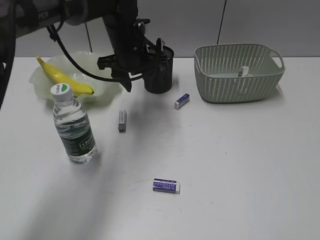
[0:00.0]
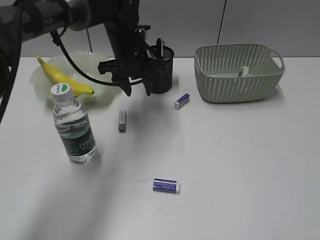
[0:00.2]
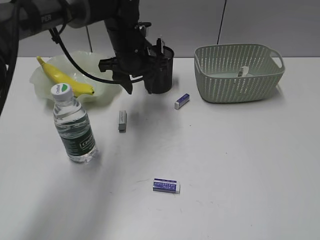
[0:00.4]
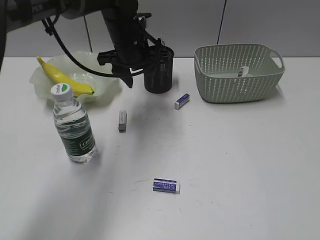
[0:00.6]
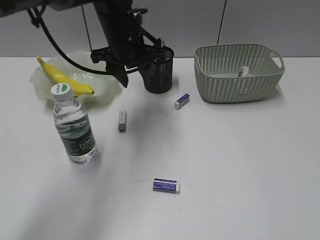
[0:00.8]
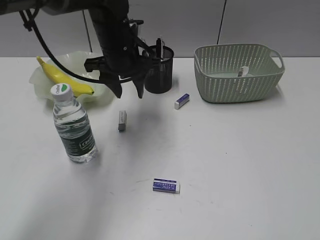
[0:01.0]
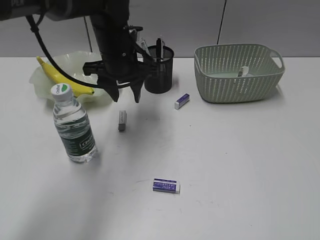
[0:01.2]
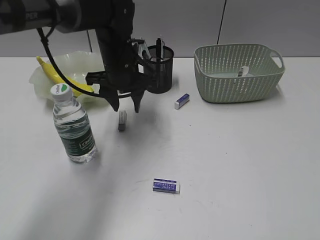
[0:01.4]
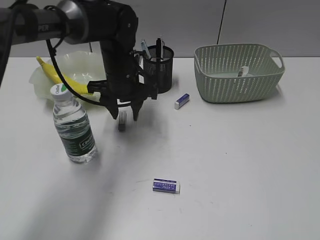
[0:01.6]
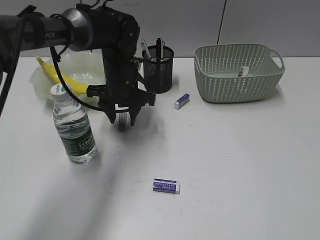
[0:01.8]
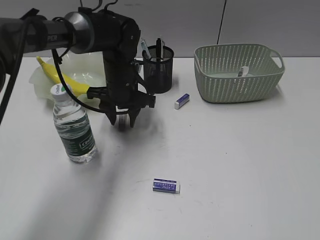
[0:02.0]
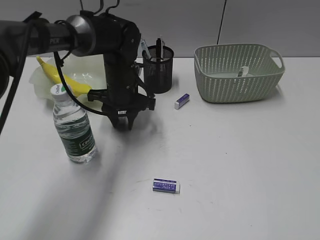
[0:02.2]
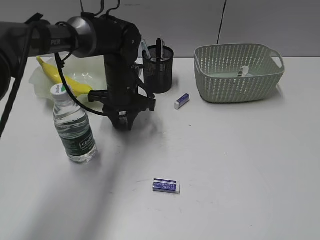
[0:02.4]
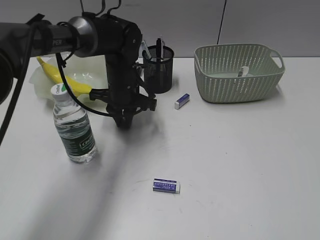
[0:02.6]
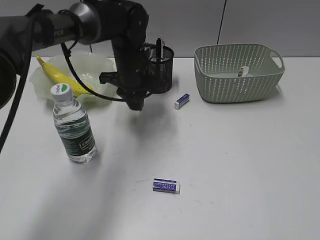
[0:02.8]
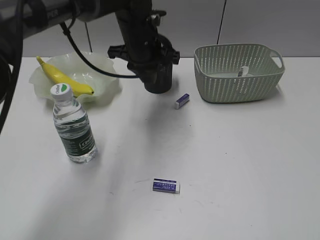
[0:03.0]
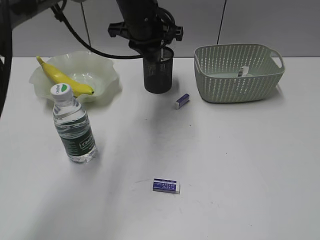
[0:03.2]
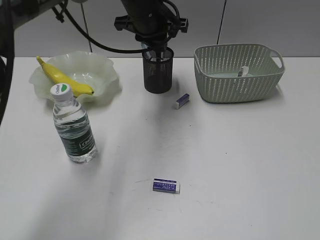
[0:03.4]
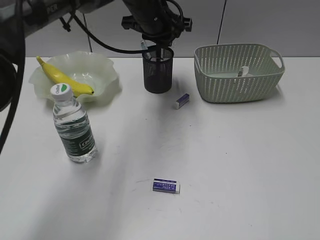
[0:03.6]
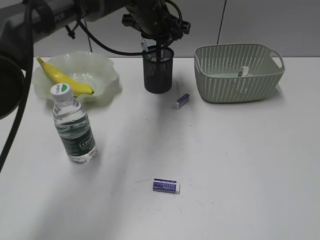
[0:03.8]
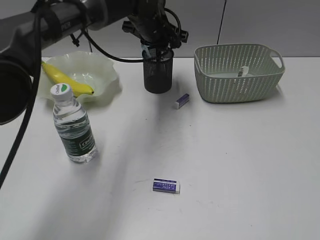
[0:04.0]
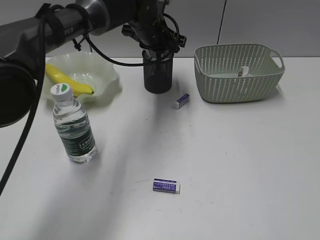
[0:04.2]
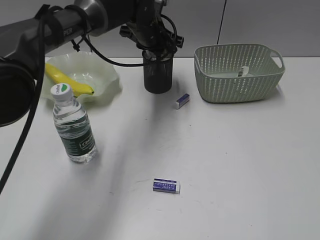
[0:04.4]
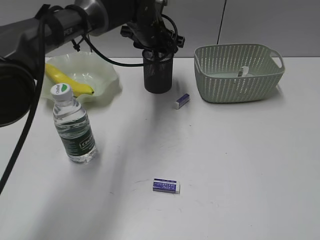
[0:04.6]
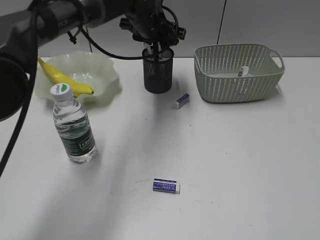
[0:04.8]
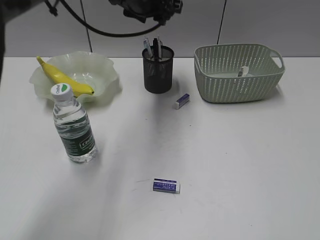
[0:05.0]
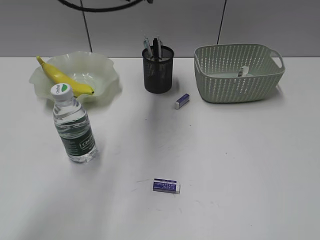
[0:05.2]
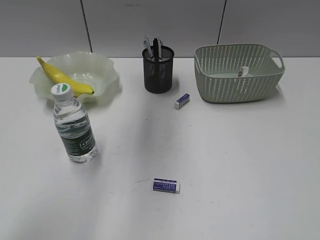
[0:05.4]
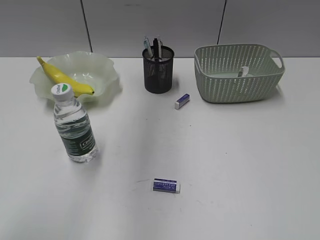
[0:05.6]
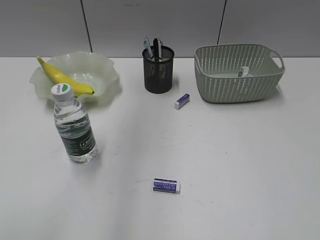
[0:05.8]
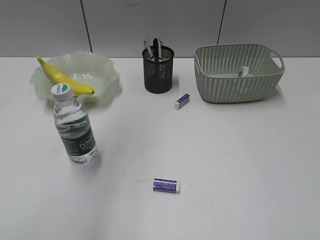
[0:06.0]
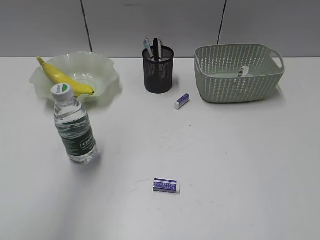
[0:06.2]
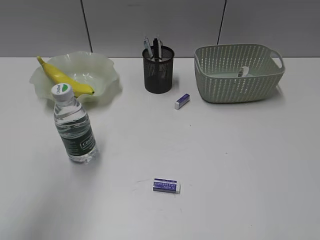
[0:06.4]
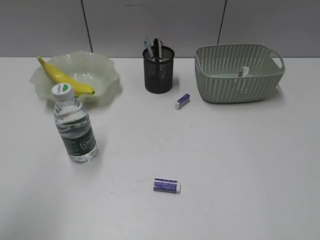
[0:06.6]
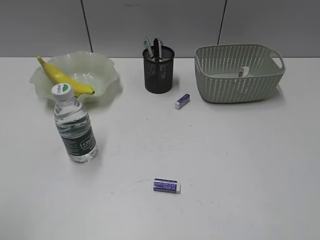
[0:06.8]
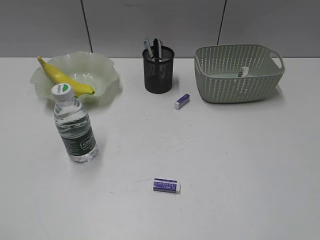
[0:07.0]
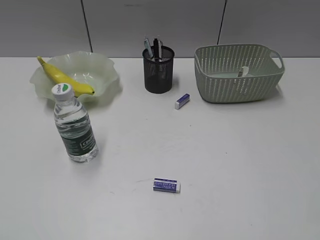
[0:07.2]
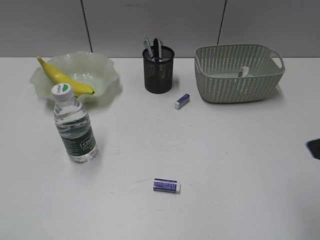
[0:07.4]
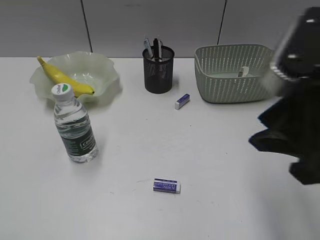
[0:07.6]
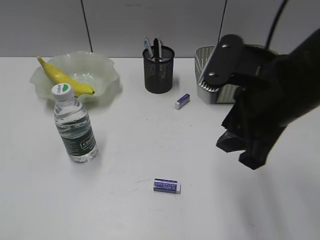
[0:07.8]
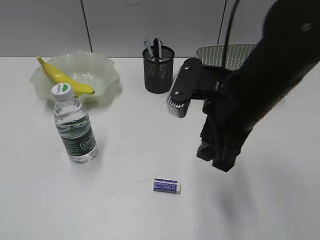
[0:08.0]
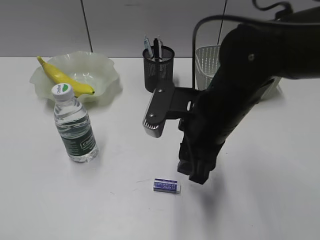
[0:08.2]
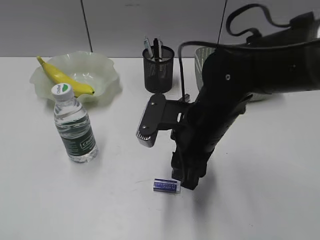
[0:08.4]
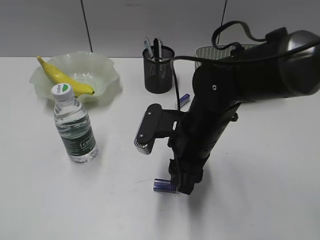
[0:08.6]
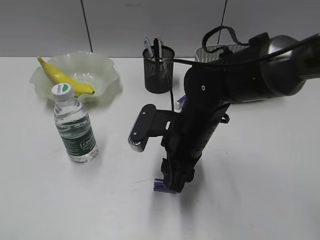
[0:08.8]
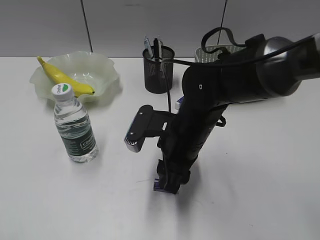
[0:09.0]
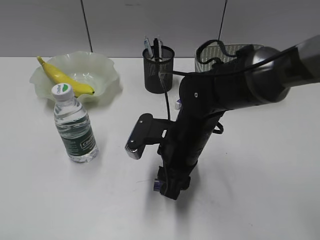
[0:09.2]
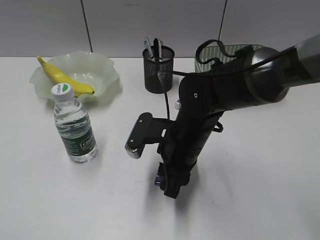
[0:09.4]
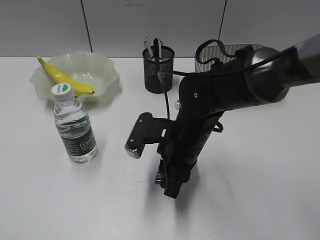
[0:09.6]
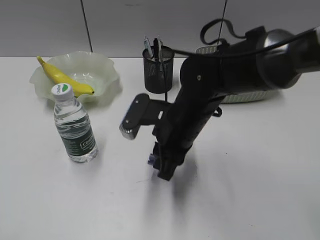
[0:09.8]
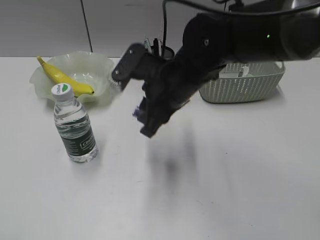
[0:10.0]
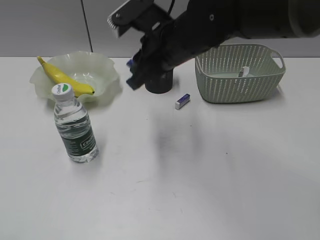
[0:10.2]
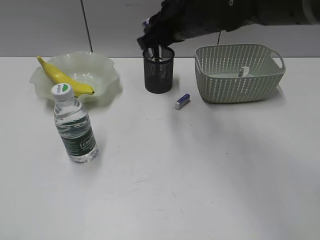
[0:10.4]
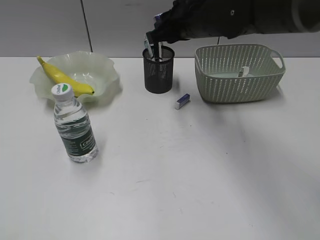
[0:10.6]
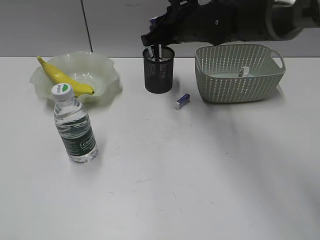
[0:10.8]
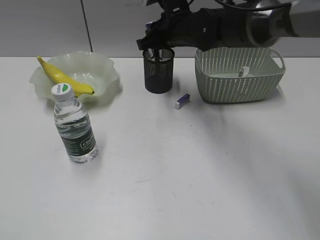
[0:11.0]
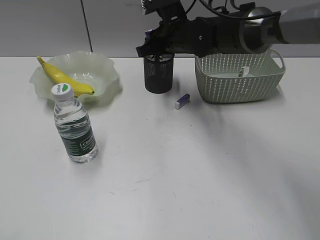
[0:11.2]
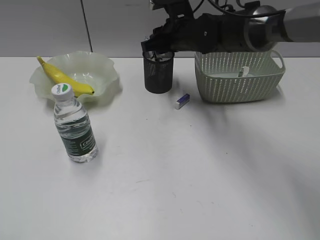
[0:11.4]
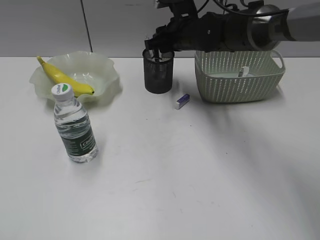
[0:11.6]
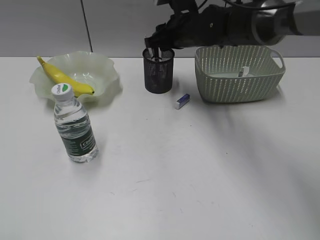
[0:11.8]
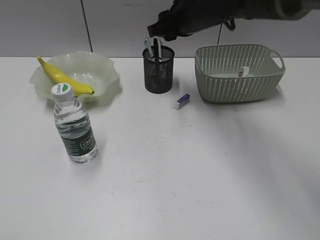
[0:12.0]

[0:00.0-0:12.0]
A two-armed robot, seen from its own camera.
Step, 0:00.0 to 0:02.4: Grasp the eraser with left gripper.
Step, 0:02.6 to 0:04.6: Place the eraser in pen holder with left gripper.
Step, 0:04.8 to 0:09.4: Grasp the eraser with right gripper.
Step, 0:09.6 to 0:11.4: Place the eraser in pen holder with right gripper.
0:00.0 to 0:01.6: The left gripper shifts by roughly 5 cm.
0:01.6 to 0:03.0: The left gripper heads upward, covering roughly 5 cm, and closes up.
0:03.0 to 0:04.4: The left gripper is displaced forward by approximately 5 cm.
0:04.4 to 0:06.0: The left gripper shifts about 40 cm upward, backward and to the left.
0:06.0 to 0:07.6: The left gripper shifts approximately 40 cm backward, downward and to the left. The right gripper heads forward and to the left, covering some 20 cm.
0:07.6 to 0:09.0: The right gripper heads downward, to the left and forward, covering roughly 25 cm.
0:09.0 to 0:10.4: The right gripper heads upward and forward, covering roughly 15 cm, and closes up.
0:10.4 to 0:12.0: The right gripper moves forward, some 5 cm, and opens its fingers.

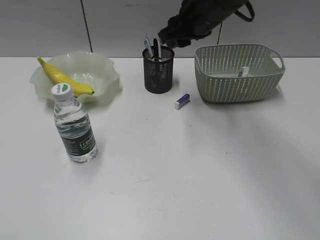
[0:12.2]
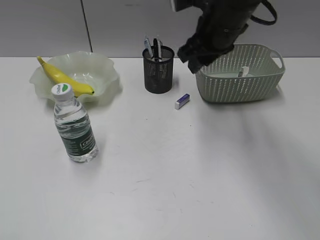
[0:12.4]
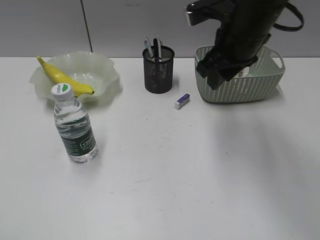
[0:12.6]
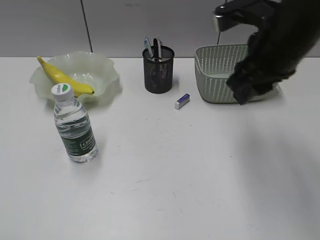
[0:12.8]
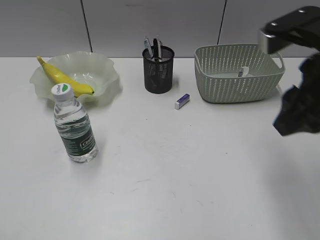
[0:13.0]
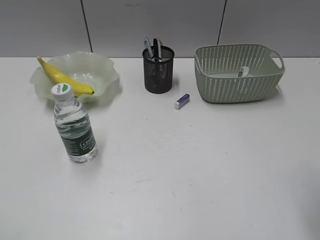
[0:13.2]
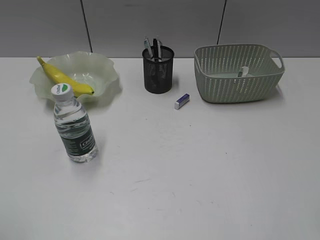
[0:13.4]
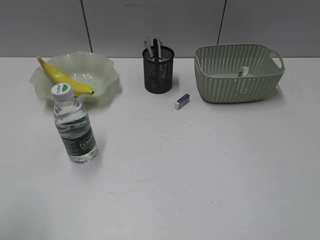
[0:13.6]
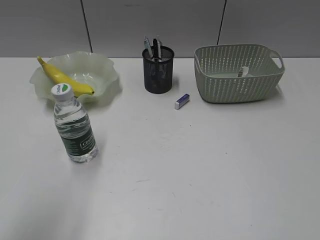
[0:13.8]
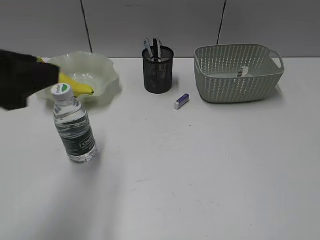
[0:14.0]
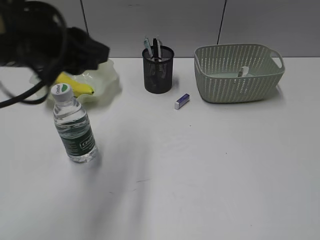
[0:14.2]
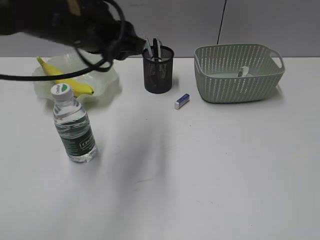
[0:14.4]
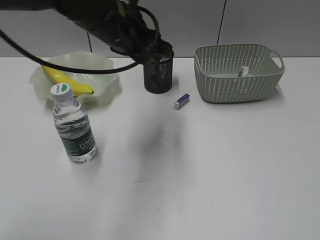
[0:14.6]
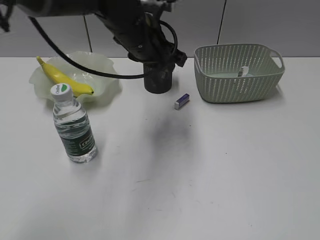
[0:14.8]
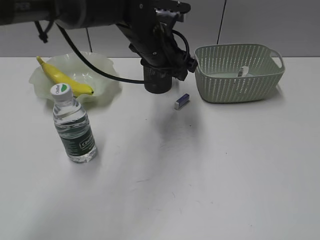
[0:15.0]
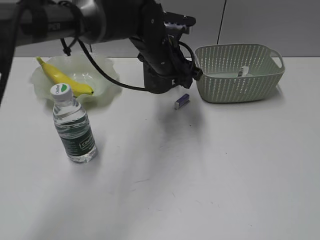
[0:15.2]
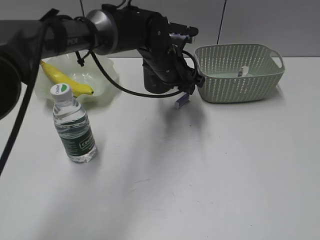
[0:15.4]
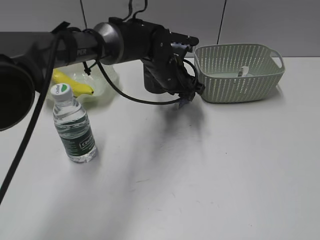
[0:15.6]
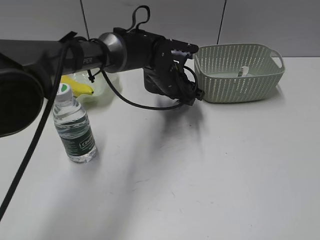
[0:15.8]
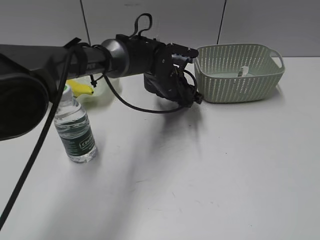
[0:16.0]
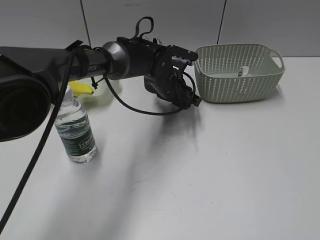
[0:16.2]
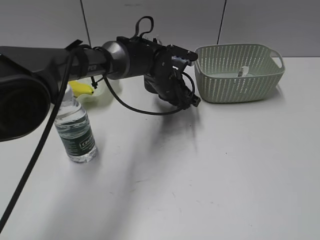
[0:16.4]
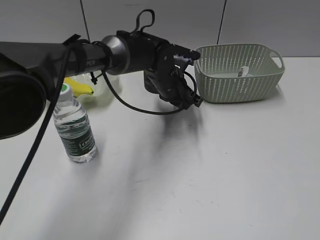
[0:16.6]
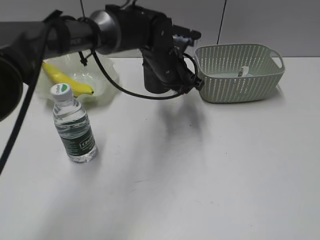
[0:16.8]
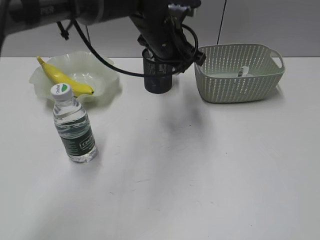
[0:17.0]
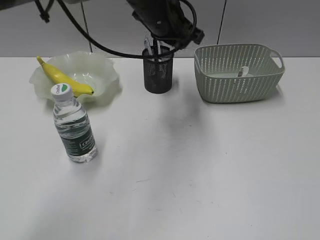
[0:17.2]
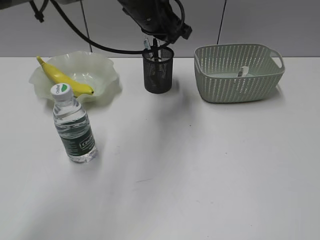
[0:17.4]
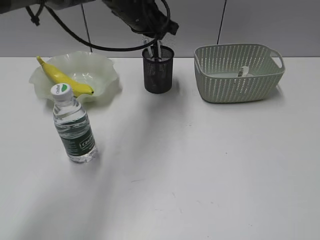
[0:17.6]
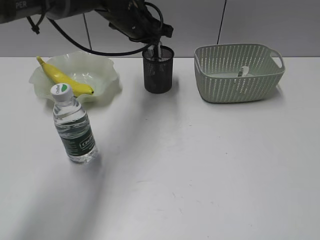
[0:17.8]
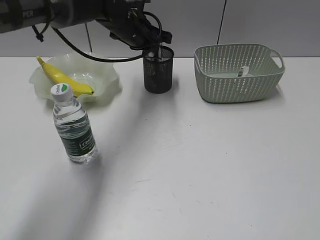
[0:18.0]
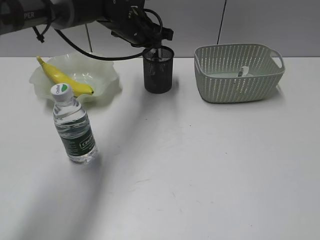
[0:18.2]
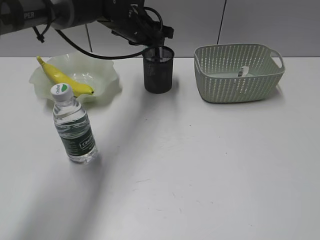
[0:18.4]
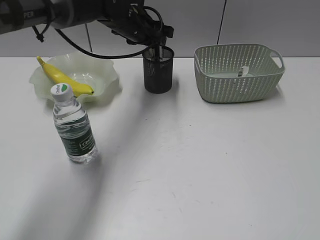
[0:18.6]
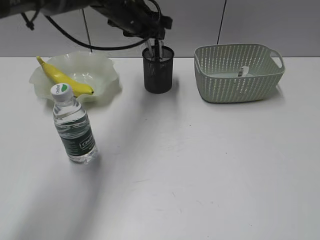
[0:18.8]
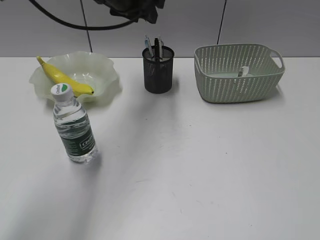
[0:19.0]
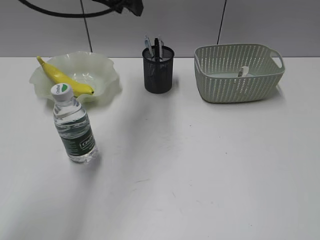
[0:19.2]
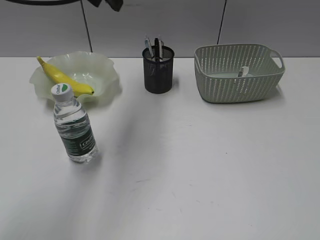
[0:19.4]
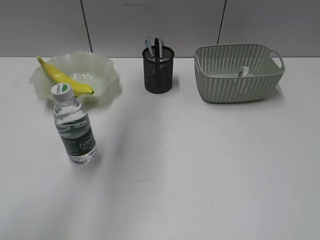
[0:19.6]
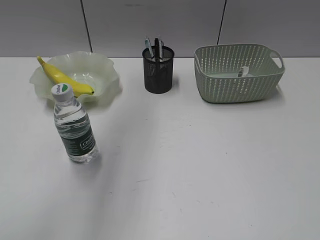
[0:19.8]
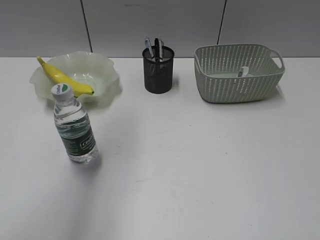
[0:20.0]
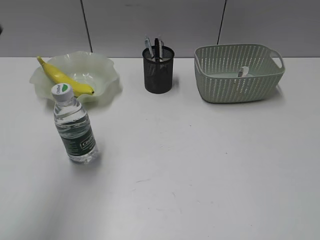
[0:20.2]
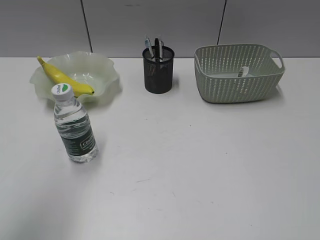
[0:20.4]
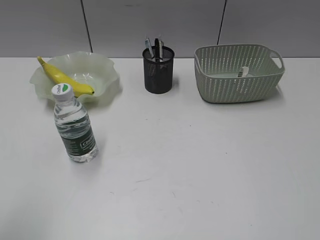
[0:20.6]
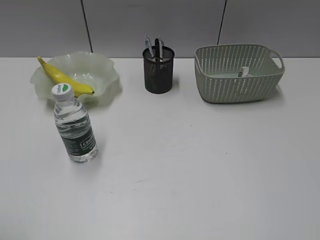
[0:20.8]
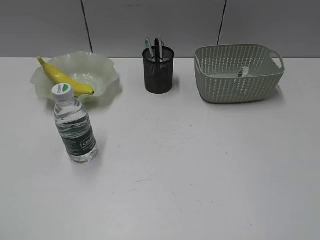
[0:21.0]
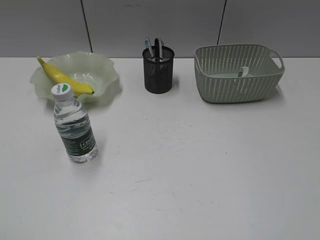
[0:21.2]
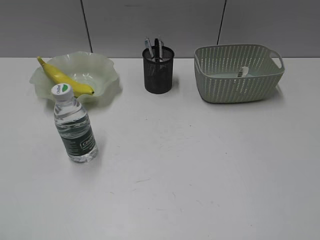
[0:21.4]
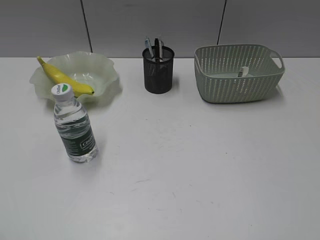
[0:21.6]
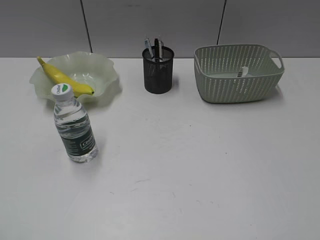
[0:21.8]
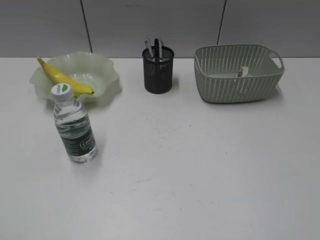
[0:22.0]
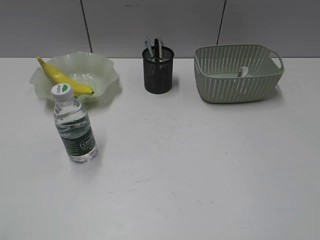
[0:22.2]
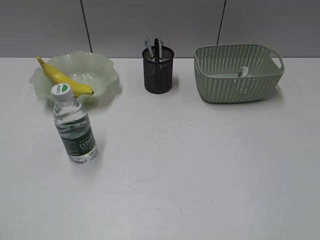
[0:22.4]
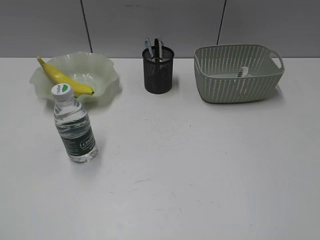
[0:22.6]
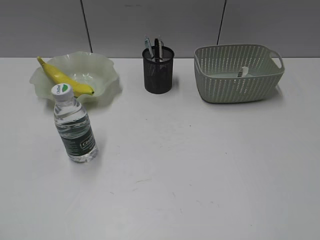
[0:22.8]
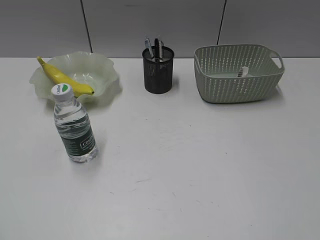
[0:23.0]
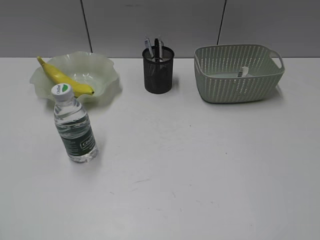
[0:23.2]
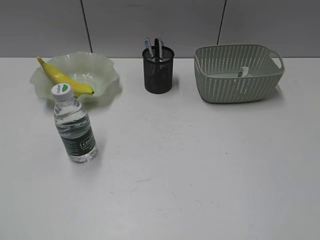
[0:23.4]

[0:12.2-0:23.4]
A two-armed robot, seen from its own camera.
Step, 0:12.2 to 0:16.4: Grasp the eraser with left gripper.
Step, 0:16.6 to 0:18.6: Place the eraser in pen holder with left gripper.
0:12.2 to 0:13.8: The right gripper is displaced backward and to the right by about 50 cm. Meanwhile the left gripper travels forward and to the right by about 10 cm.
0:13.8 to 0:15.4: The left gripper shifts some 50 cm forward, to the right and downward.
0:15.4 to 0:17.0: The left gripper shifts about 5 cm upward, and closes.
0:17.0 to 0:18.6: The left gripper shifts some 10 cm forward and to the left, and opens up.
0:18.6 to 0:20.2: The left gripper goes some 40 cm backward, upward and to the left.
0:20.2 to 0:21.8: The left gripper goes roughly 25 cm backward, downward and to the left.
